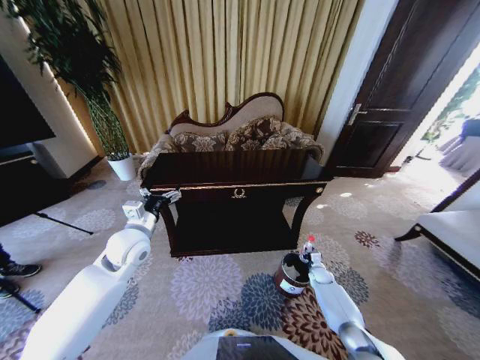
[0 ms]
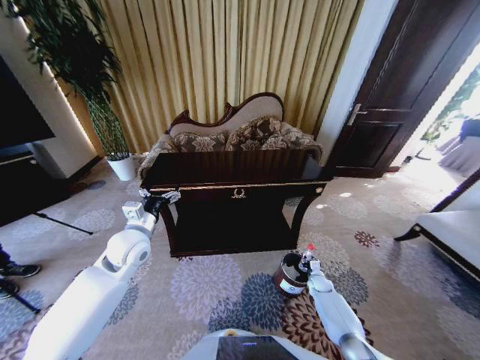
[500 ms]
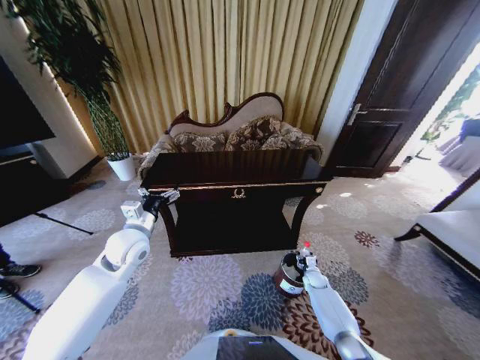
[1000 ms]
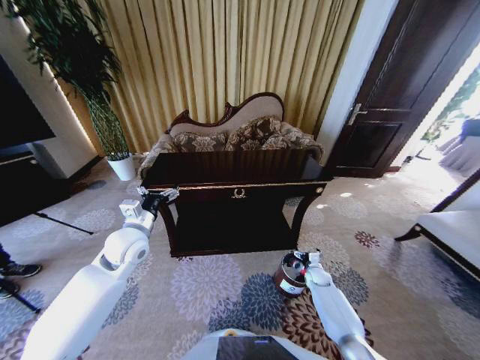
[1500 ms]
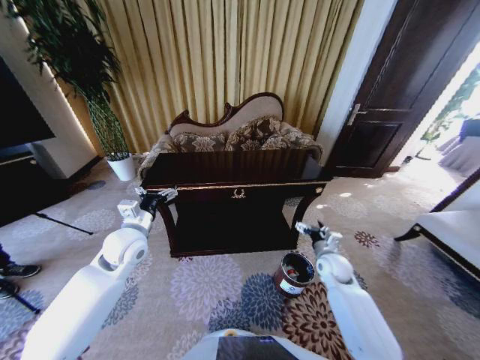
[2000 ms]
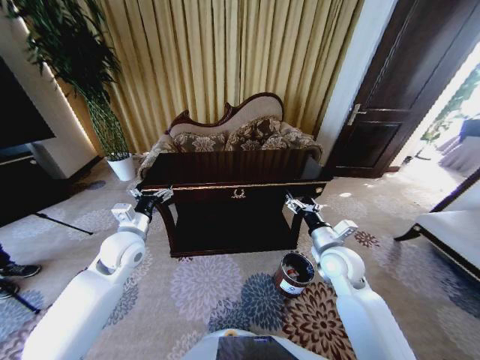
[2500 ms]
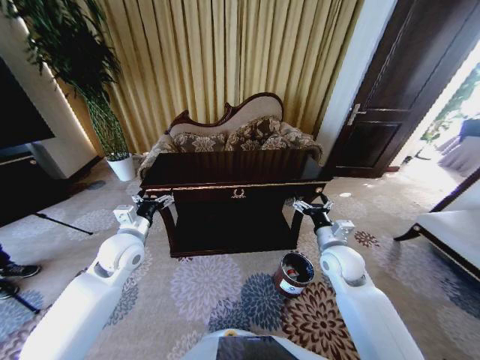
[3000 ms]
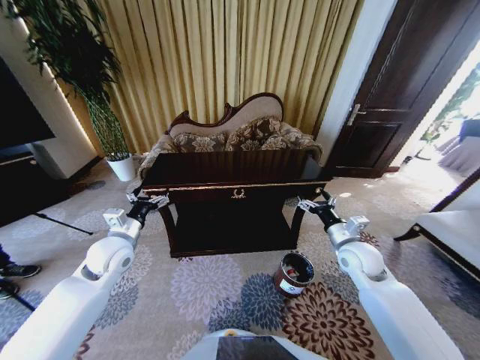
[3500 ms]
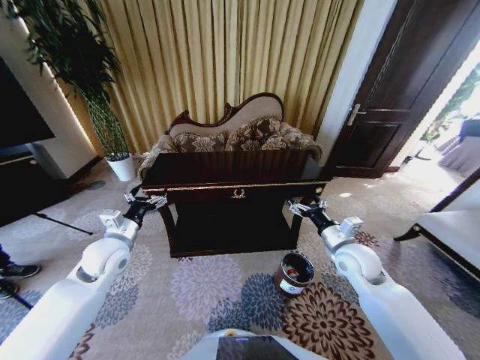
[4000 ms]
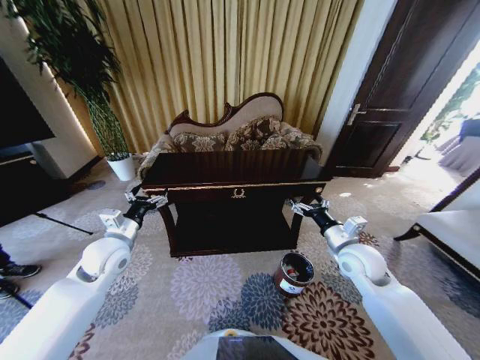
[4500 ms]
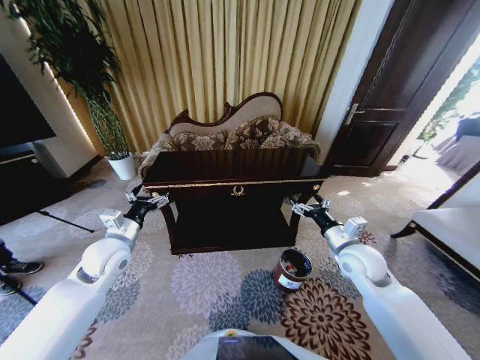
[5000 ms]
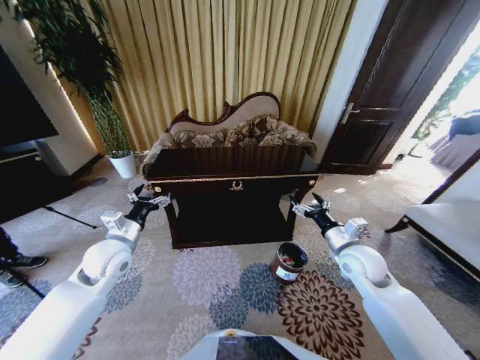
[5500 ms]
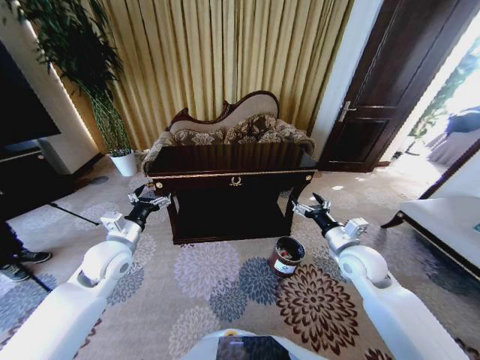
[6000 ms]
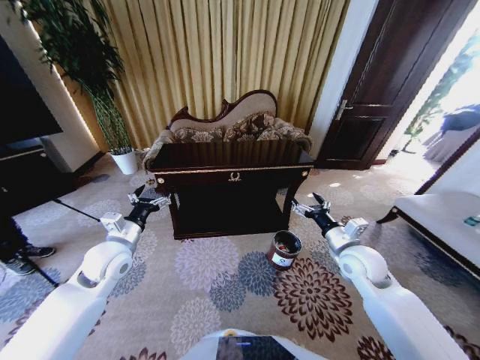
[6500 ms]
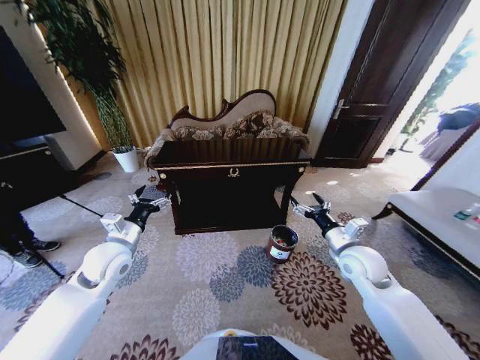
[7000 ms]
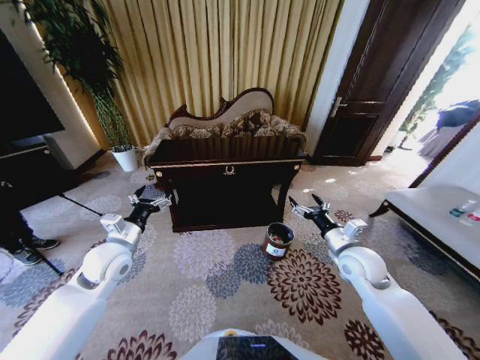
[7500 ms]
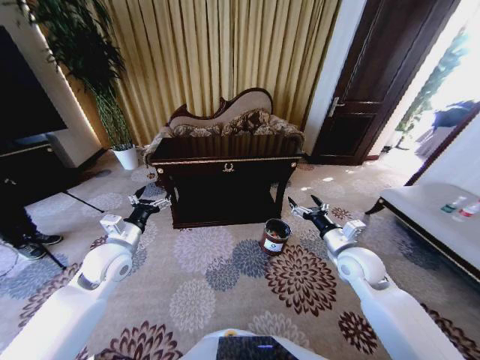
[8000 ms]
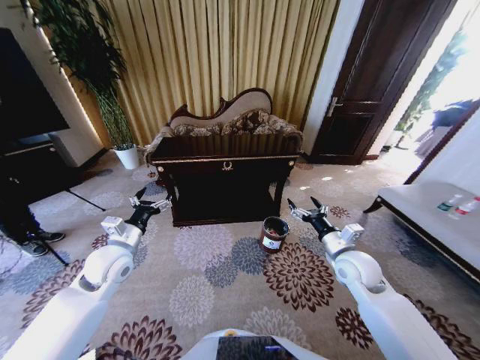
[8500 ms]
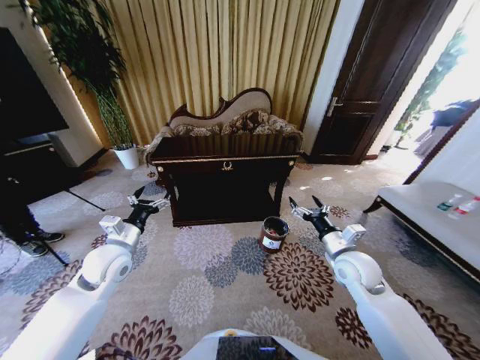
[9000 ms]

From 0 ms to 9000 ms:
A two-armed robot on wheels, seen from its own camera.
Task of the whole recording: Move to the front of the table and place the trash on the table into the trash bin.
From 0 ms to 2000 ms: The right gripper heads upward, covering about 20 cm, and opens.
From 2000 ms to 4500 ms: The right gripper shifts approximately 15 cm upward.

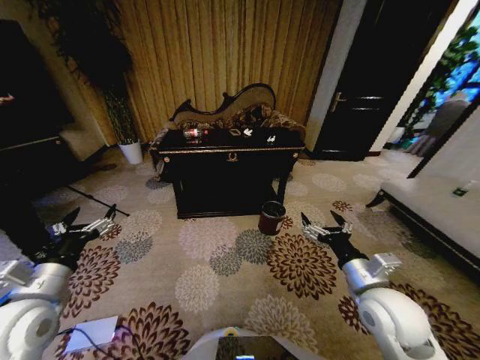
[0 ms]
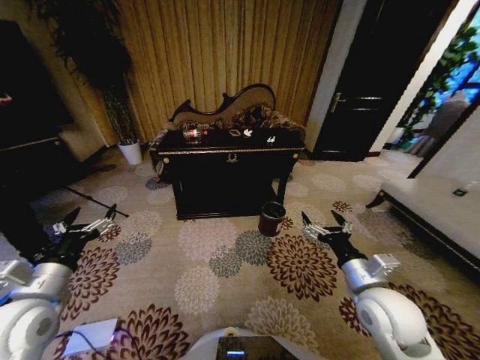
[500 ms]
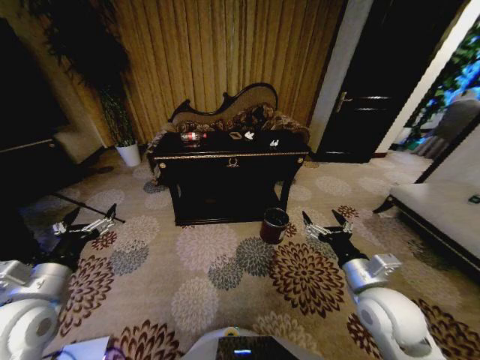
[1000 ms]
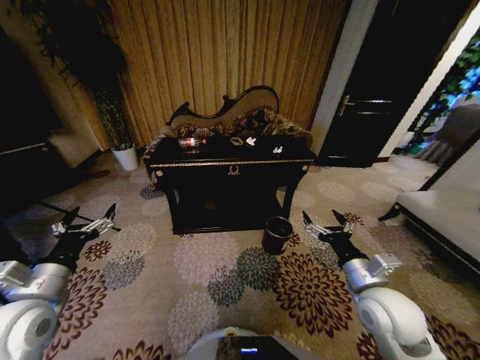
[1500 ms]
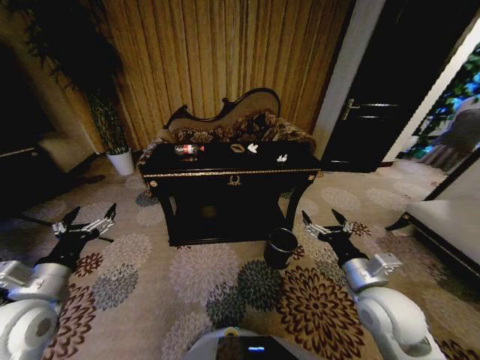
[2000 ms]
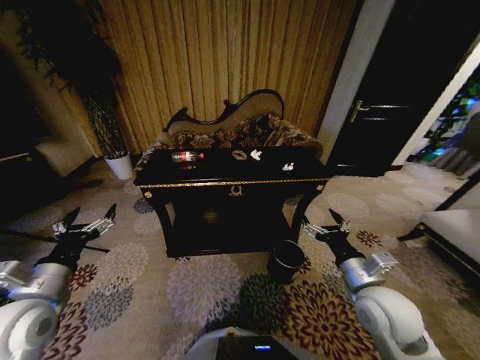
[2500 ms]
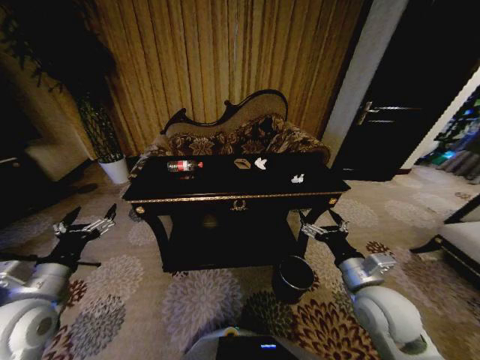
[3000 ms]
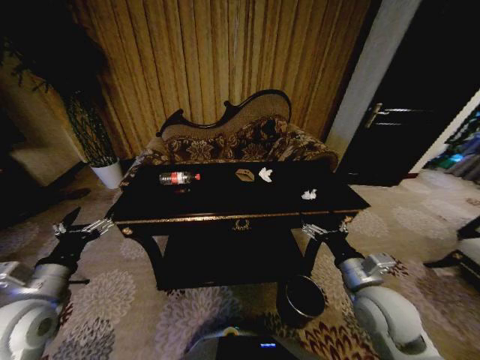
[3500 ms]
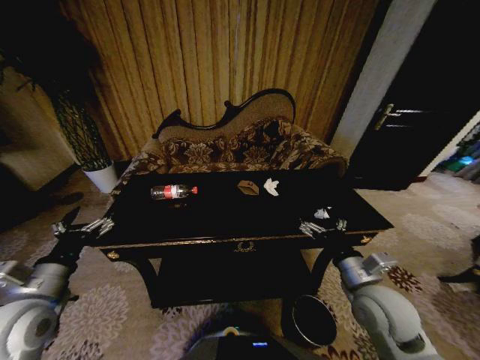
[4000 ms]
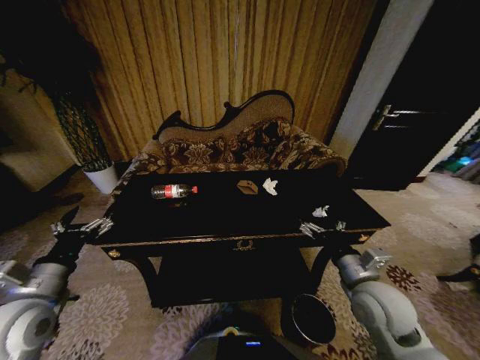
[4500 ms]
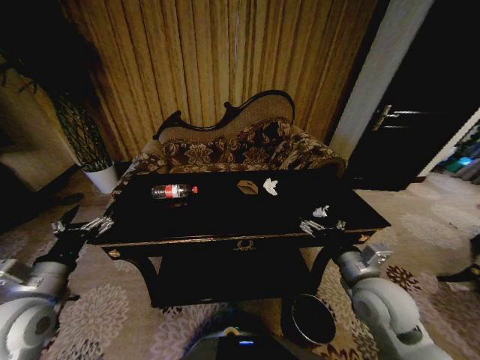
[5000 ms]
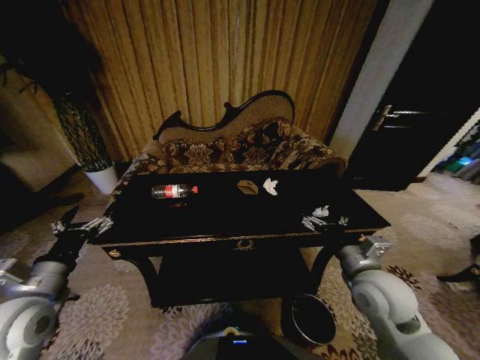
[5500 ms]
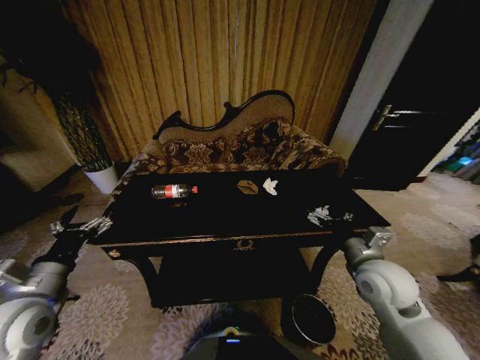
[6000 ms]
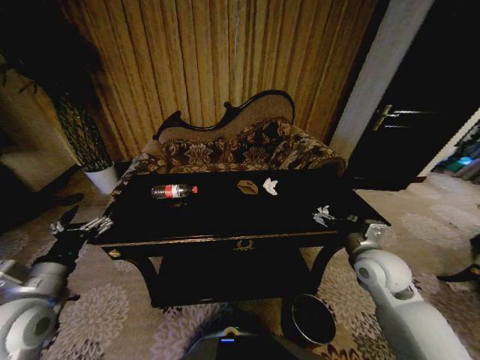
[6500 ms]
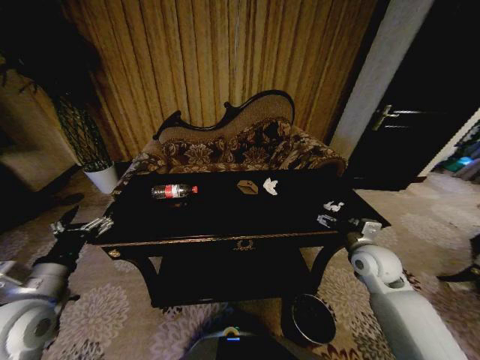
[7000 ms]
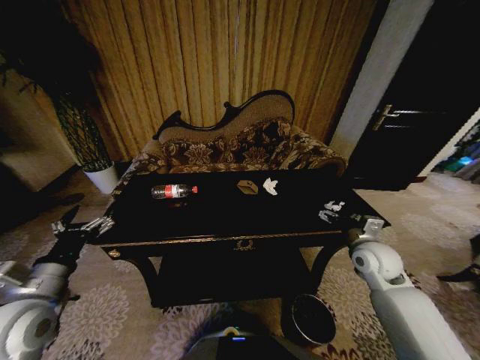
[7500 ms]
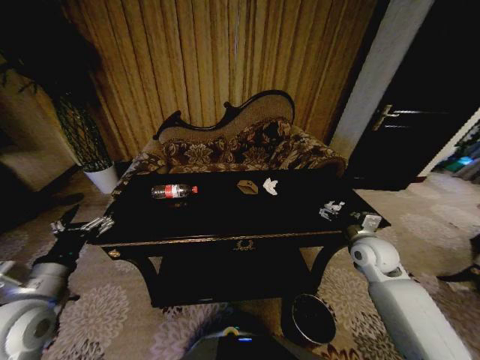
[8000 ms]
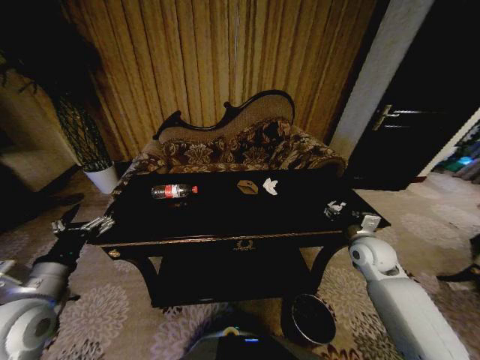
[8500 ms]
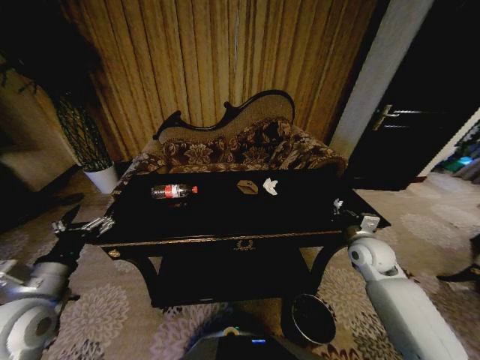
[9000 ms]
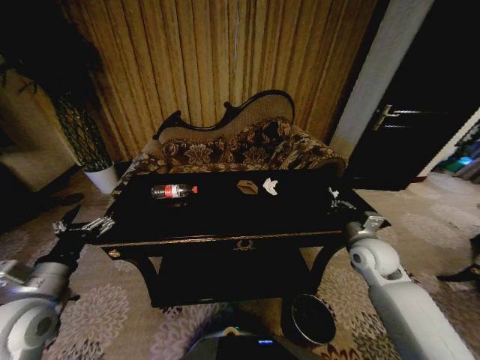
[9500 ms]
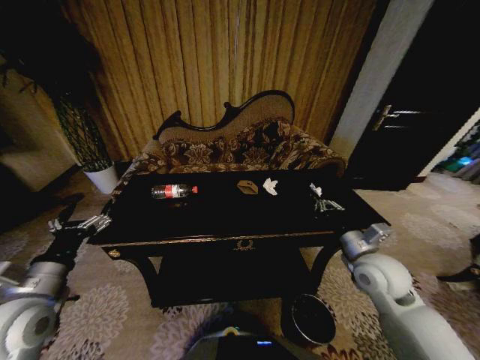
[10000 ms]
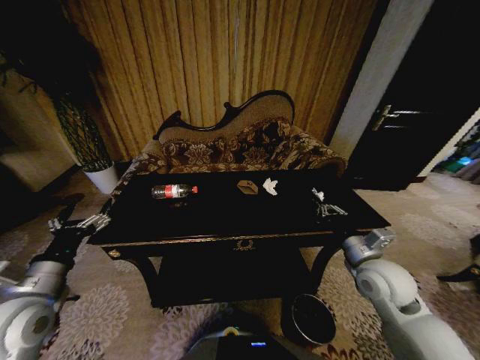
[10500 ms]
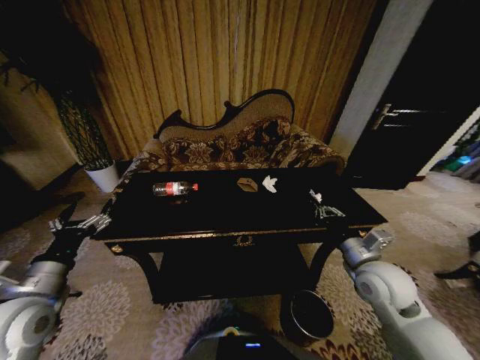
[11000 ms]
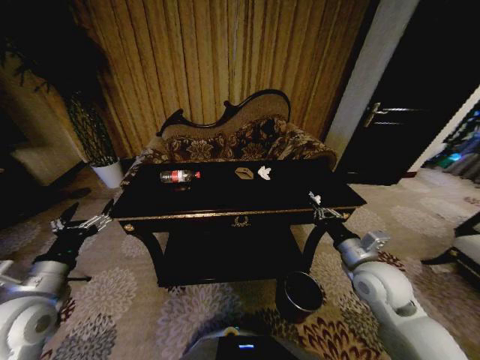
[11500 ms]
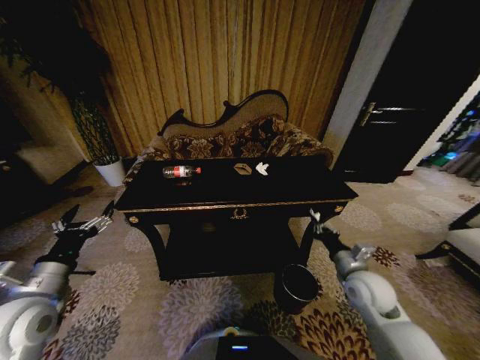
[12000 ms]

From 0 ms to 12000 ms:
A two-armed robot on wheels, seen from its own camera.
Task of the whole recording: Move to the front of the table and place the trash on the table into the trash bin.
From 4000 ms to 6000 ms: The right gripper moves about 5 cm.
From 6000 ms to 8000 ms: The right gripper shifts about 10 cm forward and to the right.
From 8000 ms to 10000 ms: The right gripper shifts about 10 cm backward and to the left, and closes its fingers.
From 10000 ms to 12000 ms: The right gripper travels downward by some 5 cm.

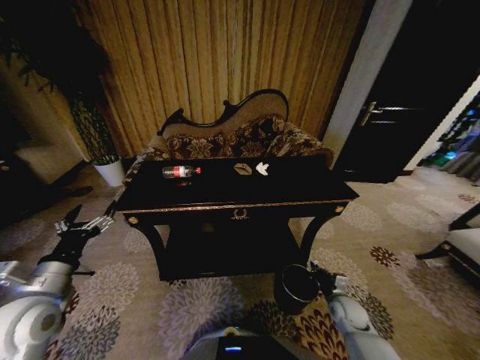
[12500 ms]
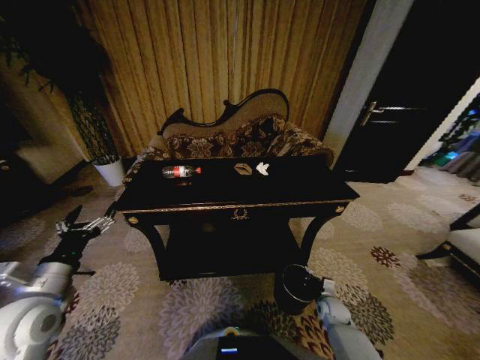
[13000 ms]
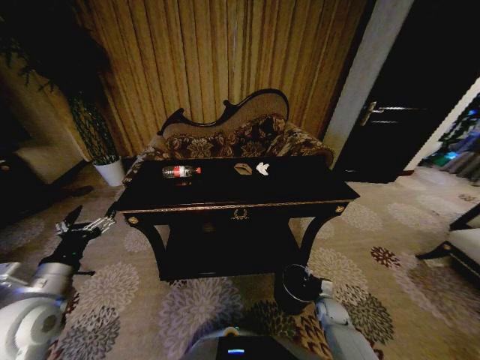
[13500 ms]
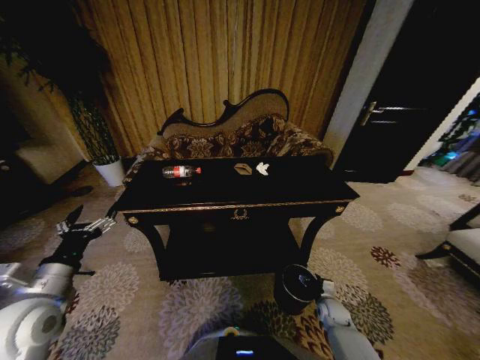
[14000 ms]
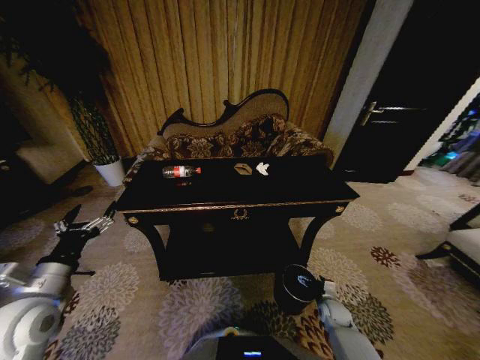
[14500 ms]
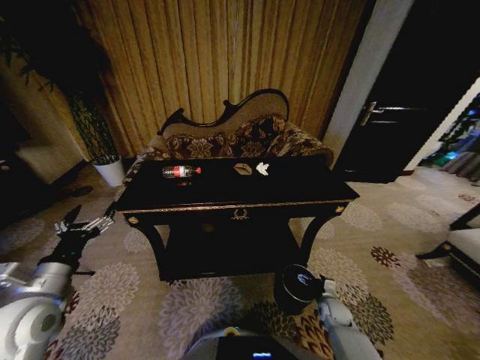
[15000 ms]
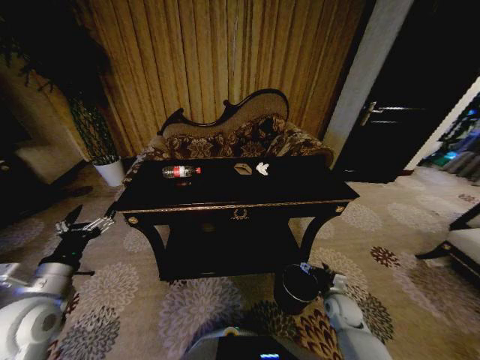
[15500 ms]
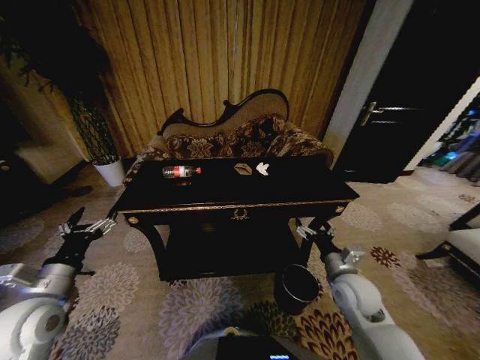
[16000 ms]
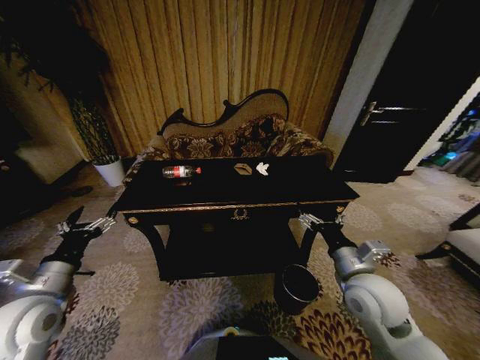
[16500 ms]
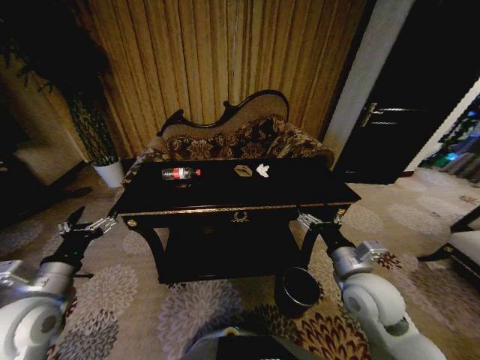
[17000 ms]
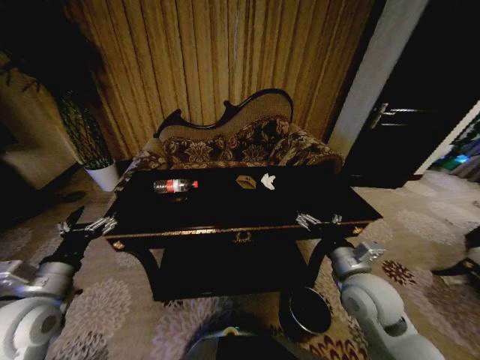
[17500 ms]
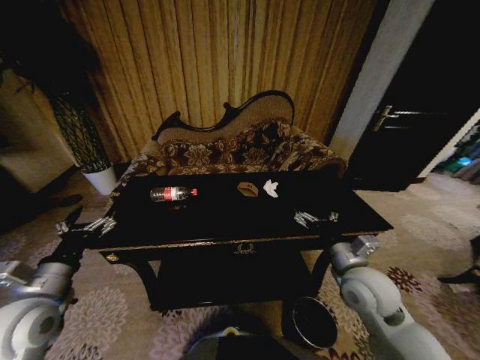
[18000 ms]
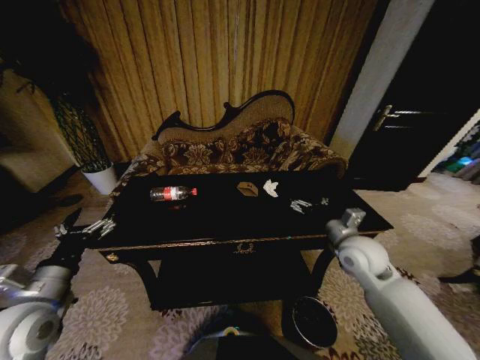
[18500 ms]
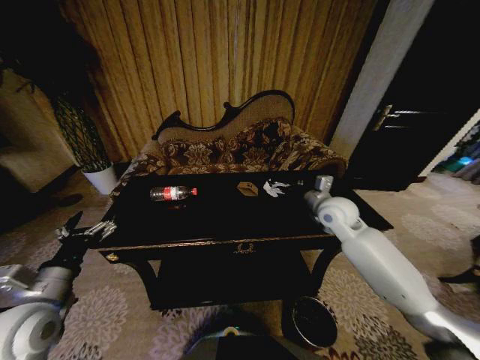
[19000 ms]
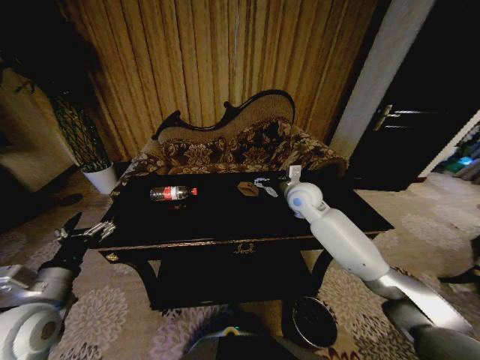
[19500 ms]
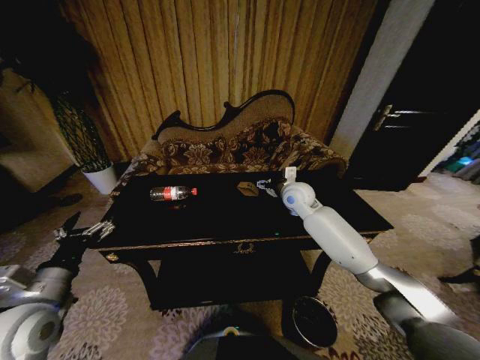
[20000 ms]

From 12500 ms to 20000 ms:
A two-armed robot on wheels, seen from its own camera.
Task of the whole recording: Move to the front of the table and place the trash on the table into the trash bin.
From 12500 ms to 14500 ms: The right gripper is displaced downward by about 10 cm, and opens its fingers.
From 14500 ms to 16500 ms: The right gripper goes some 35 cm upward.
From 18000 ms to 20000 ms: The right gripper shifts roughly 25 cm forward.
